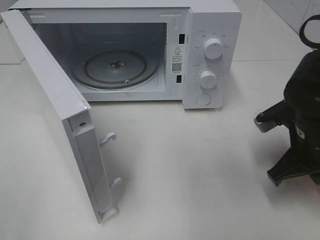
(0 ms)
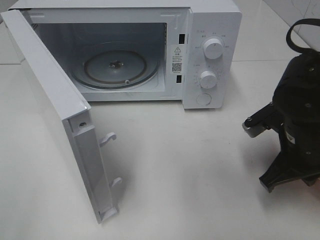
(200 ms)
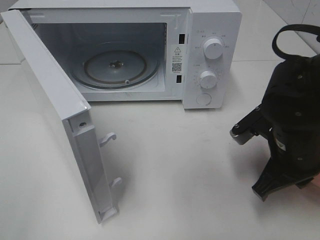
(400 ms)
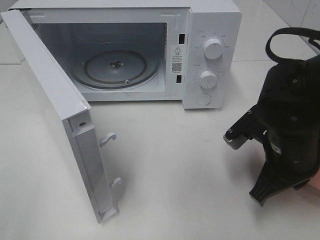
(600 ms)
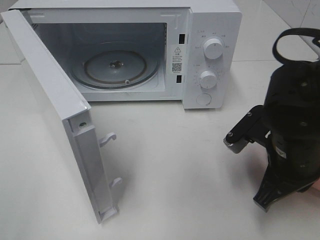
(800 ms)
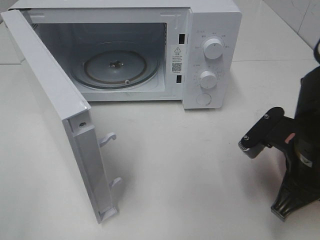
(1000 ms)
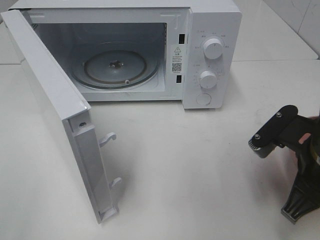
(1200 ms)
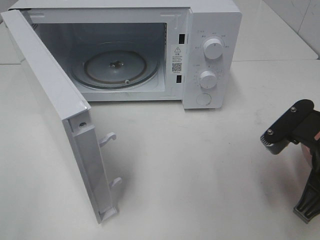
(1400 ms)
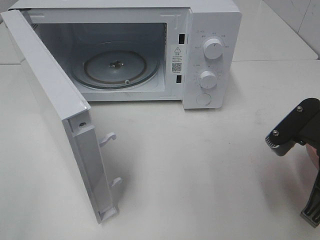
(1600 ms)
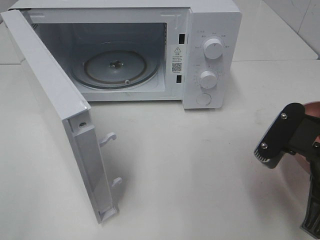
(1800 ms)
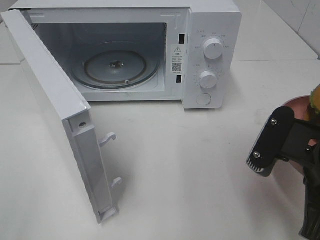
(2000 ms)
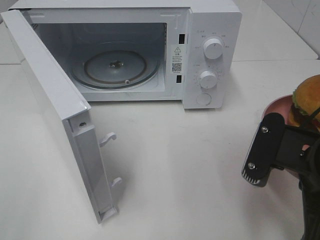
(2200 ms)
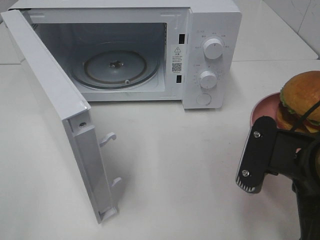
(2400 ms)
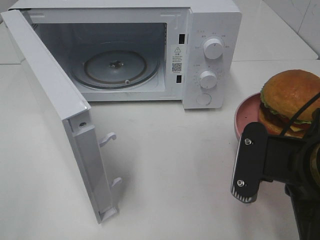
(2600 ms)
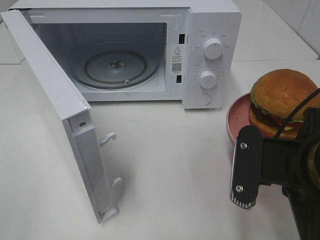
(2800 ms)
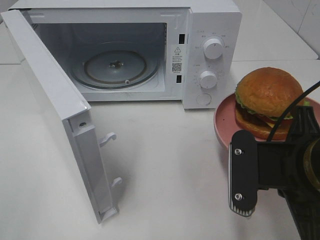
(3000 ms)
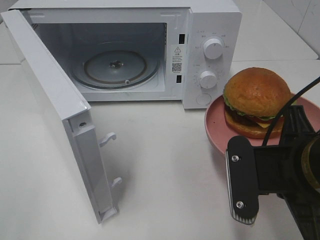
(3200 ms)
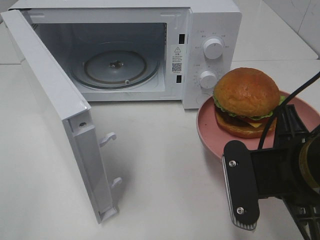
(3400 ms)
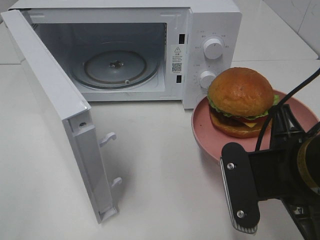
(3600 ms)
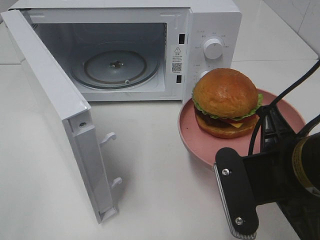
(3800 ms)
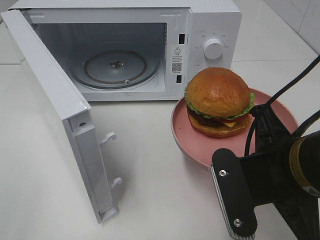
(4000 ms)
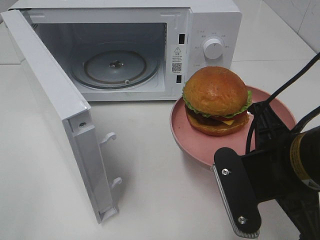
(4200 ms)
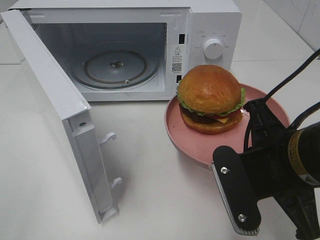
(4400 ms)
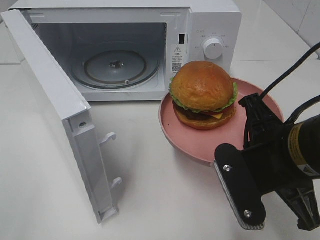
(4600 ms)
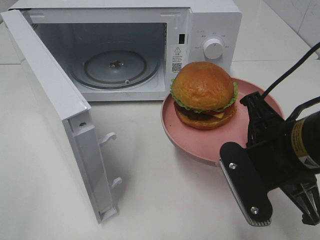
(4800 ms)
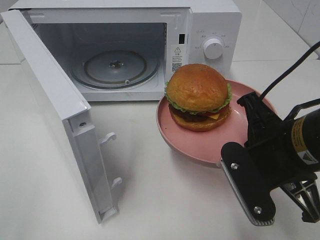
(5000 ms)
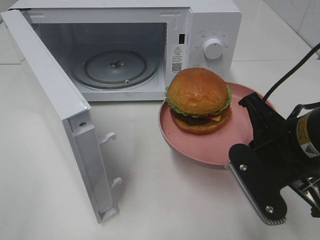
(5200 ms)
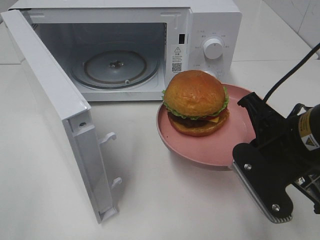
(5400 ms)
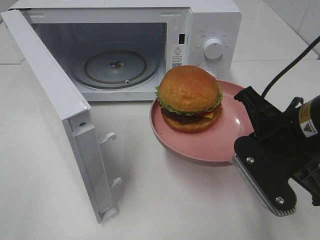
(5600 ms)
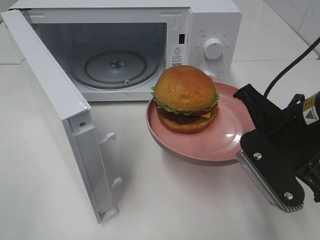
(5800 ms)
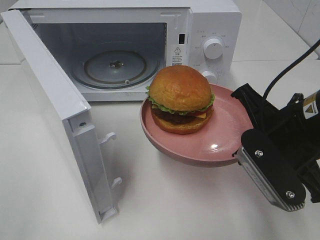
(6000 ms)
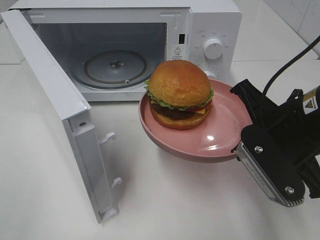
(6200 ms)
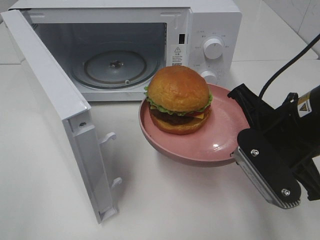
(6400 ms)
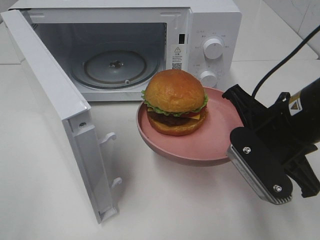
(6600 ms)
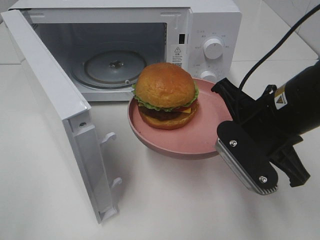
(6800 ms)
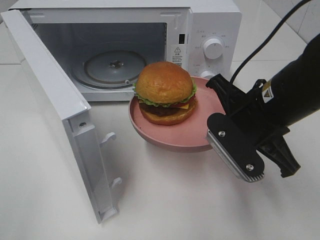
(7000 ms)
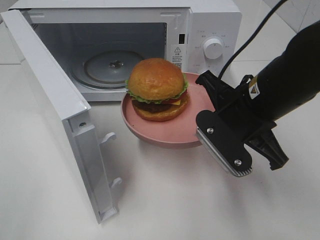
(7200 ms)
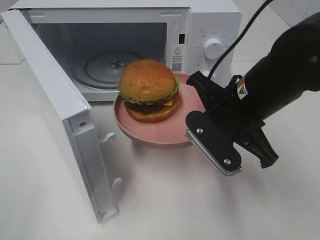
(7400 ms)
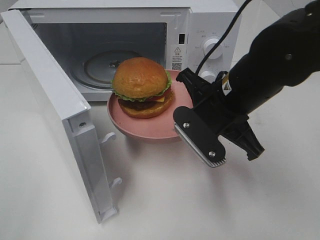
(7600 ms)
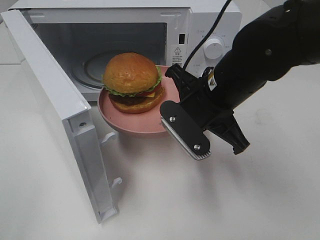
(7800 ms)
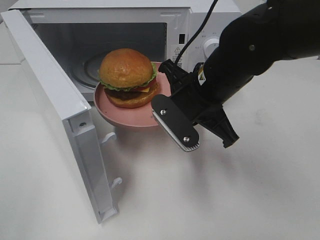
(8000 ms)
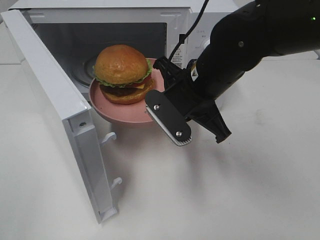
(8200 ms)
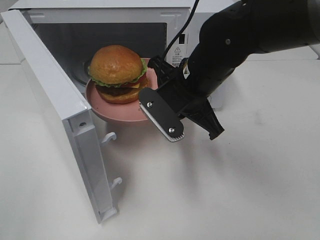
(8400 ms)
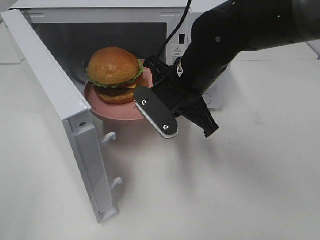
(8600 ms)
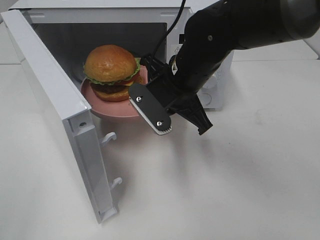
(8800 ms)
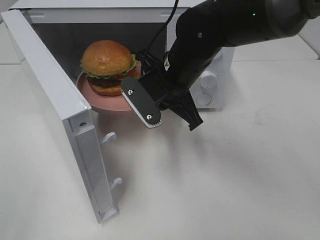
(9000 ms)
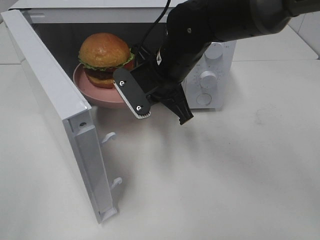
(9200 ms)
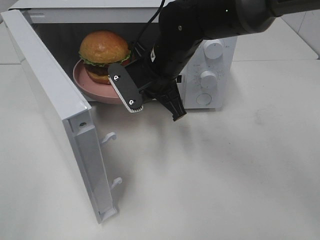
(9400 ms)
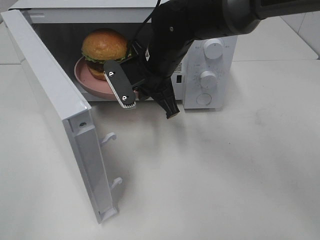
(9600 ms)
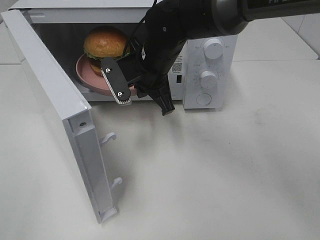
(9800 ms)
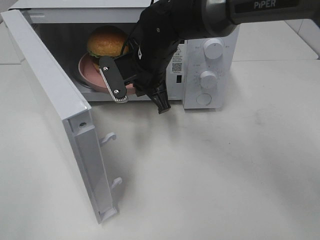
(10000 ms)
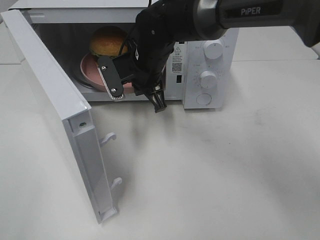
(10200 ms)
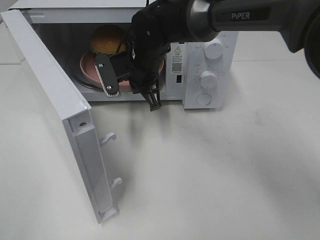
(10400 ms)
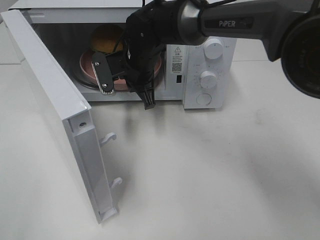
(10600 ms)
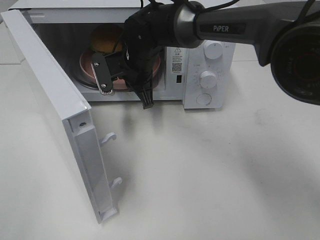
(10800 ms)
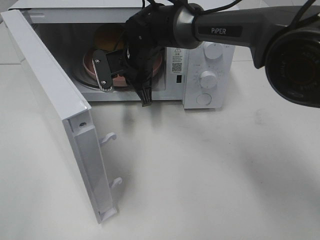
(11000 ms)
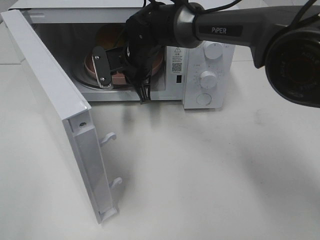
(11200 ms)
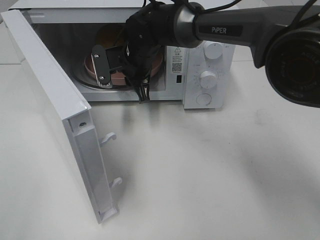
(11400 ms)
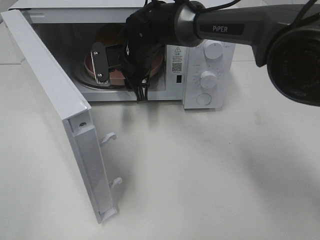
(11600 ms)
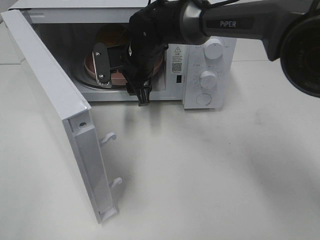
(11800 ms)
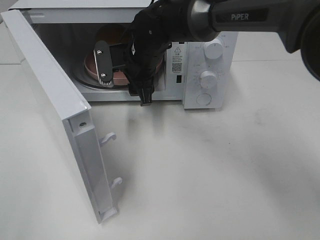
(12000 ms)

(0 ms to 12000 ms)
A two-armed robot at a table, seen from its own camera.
Task of the whole recording: Heat the burger.
Step, 0 ms - 11200 ms: Right hand: place the plate in the microwave.
0 ms - 1600 ms: The right gripper heads backward and upward, covering about 10 cm.
1600 ms - 3000 ms: The right gripper heads to the left, covering some 5 cm.
4400 ms - 6000 ms: The right gripper changes place by roughly 5 cm.
6000 ms - 7600 ms: The right gripper moves to the left and forward, roughly 10 cm.
7600 ms - 9000 ms: The right gripper travels forward and to the left by some 10 cm.
9000 ms - 10400 ms: The right gripper is displaced forward and to the left by roughly 10 cm.
10400 ms - 12000 ms: The right gripper opens.

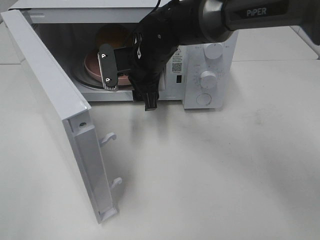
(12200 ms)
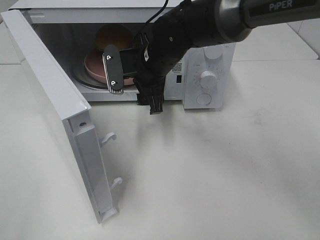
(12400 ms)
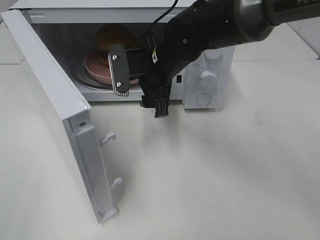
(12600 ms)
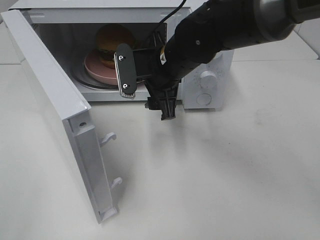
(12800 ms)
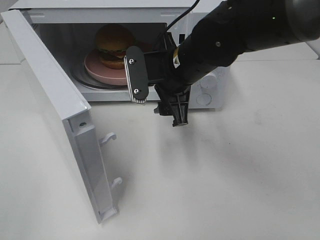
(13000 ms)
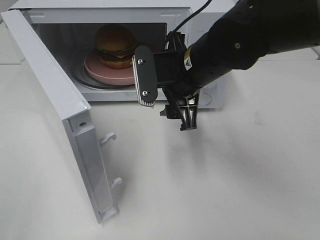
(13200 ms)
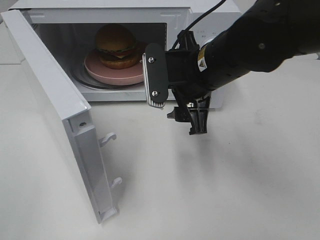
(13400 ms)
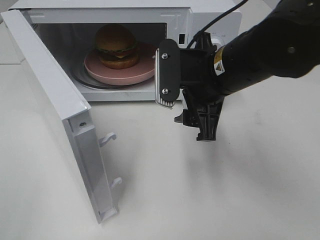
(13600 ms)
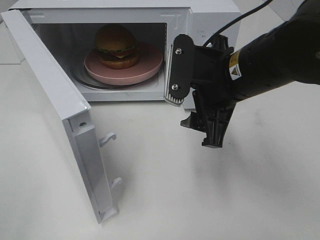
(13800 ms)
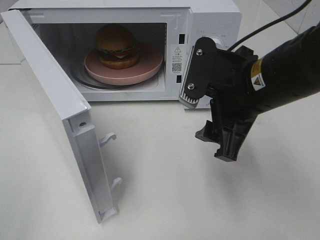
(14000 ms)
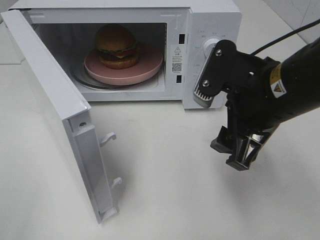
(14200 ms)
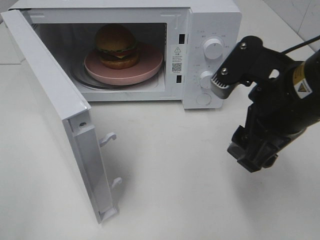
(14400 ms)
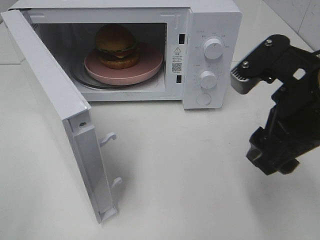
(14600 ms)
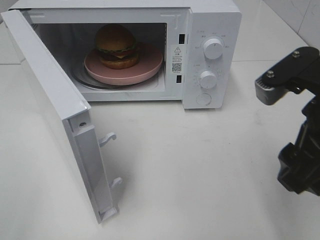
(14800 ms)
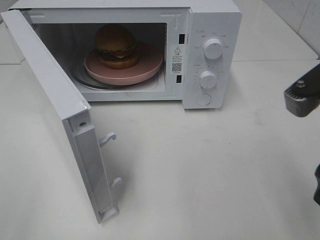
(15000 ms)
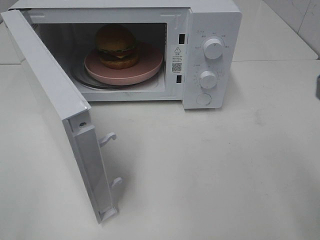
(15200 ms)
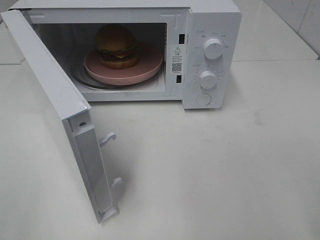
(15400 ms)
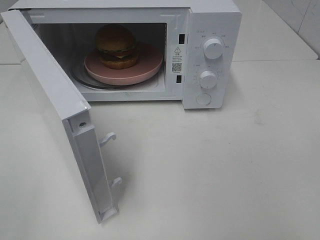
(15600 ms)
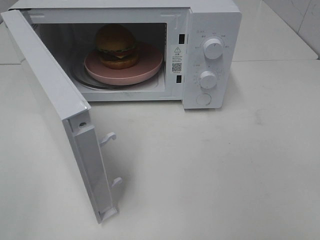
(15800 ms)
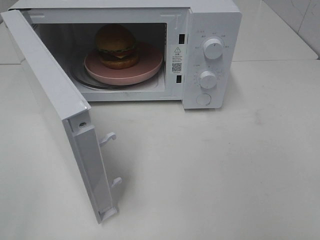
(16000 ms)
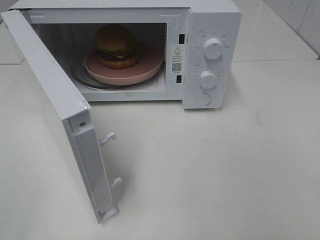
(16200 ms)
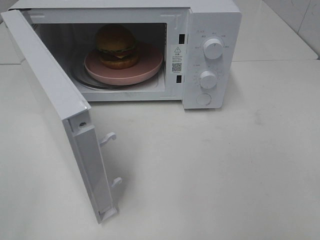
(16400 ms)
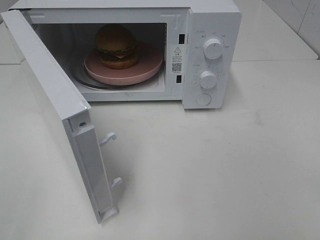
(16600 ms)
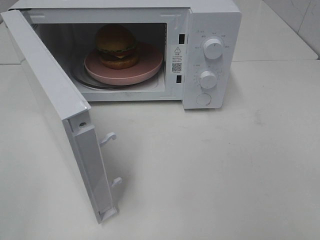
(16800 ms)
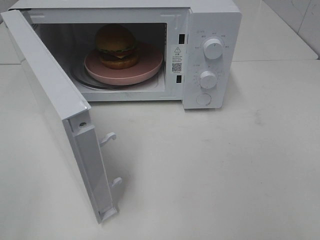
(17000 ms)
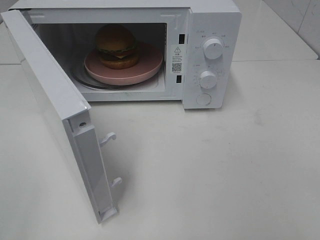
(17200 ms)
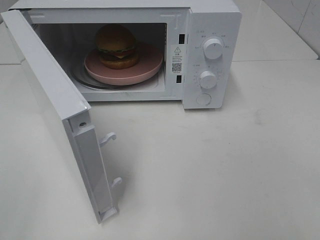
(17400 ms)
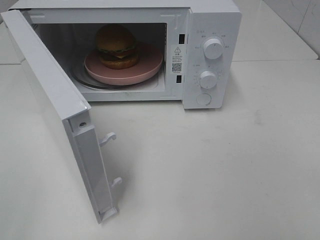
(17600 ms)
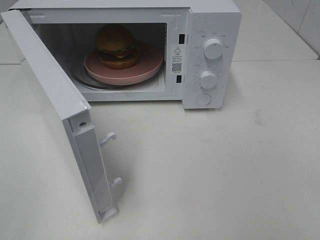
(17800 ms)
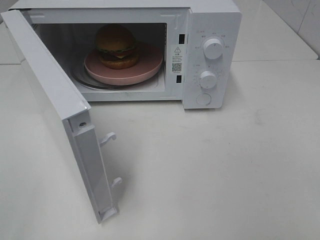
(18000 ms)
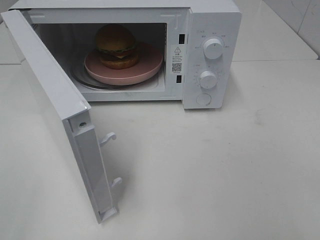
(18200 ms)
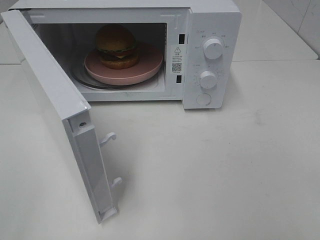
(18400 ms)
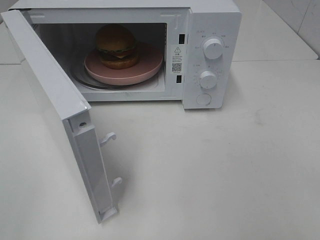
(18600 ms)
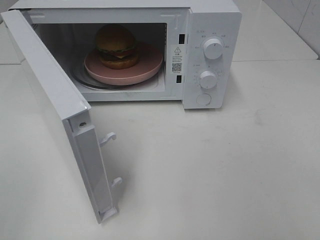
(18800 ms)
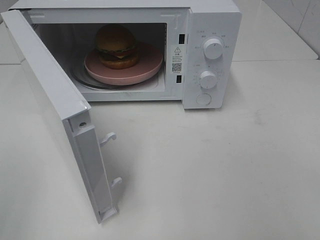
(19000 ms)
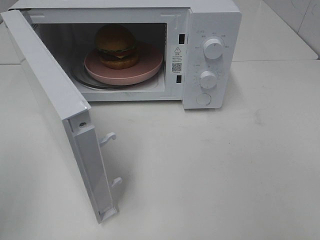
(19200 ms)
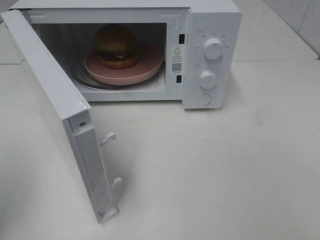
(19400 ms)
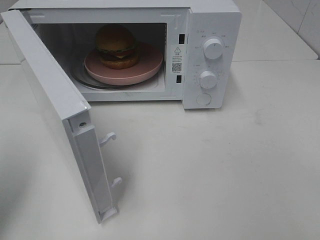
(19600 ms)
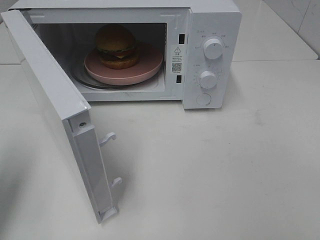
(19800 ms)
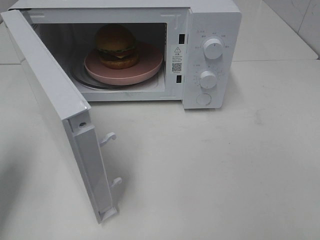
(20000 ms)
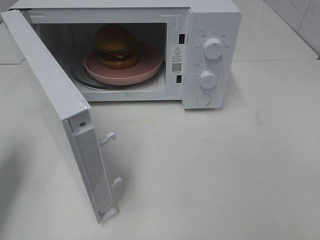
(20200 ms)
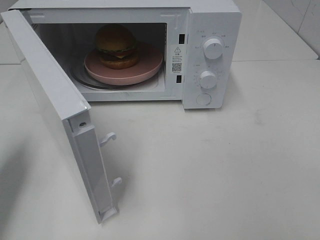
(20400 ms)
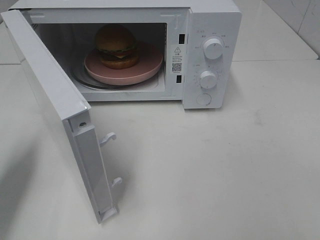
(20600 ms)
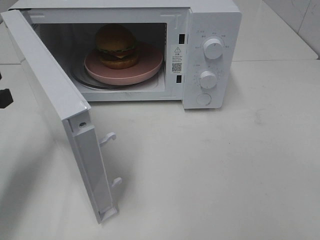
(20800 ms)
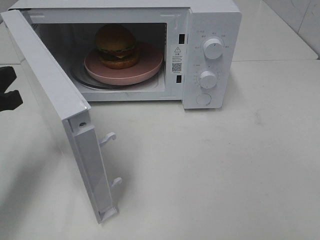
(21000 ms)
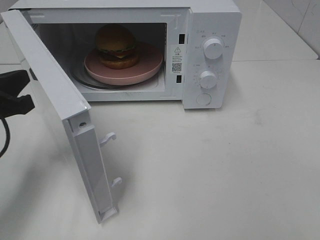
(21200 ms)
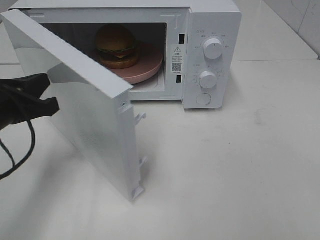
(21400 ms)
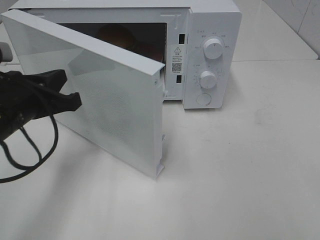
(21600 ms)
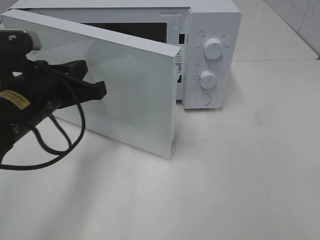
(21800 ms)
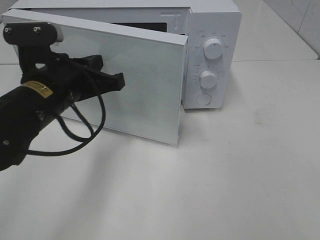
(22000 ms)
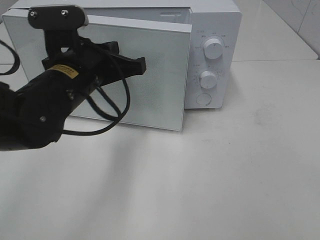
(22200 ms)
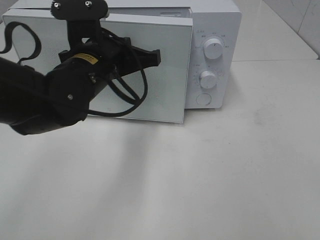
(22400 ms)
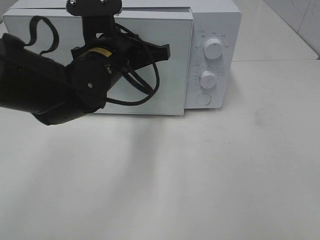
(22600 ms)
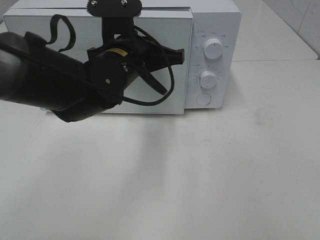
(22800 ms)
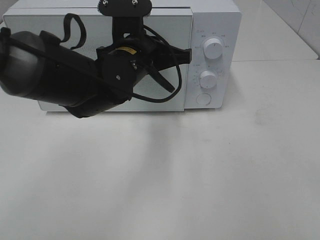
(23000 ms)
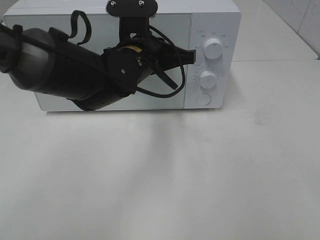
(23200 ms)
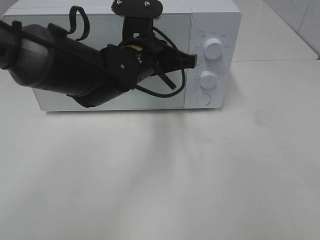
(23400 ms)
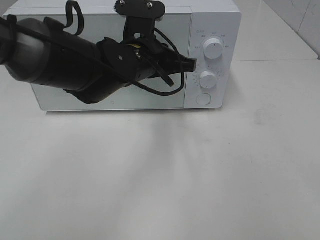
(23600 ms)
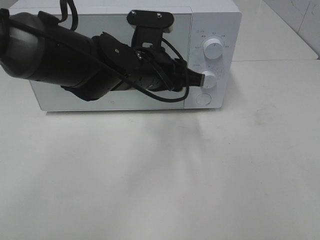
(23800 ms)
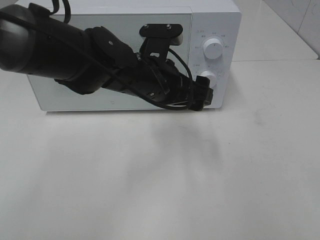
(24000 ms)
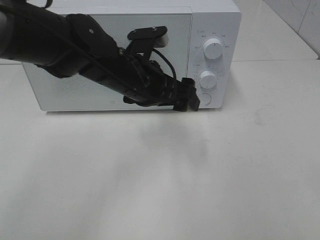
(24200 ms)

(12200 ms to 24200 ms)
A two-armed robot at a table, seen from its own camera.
Task of the whole recording: Heat the burger.
Step, 12200 ms - 23600 ms: Left hand: close the microwave door.
12200 ms - 13800 ms: The right gripper moves backward and to the right, roughly 20 cm.
13800 ms - 15200 ms: The right gripper moves backward, to the right and upward, some 20 cm.
15200 ms - 16600 ms: The right gripper is displaced backward and to the right by approximately 15 cm.
16600 ms - 18200 ms: Both grippers stay about where they are.
18200 ms - 19800 ms: The left gripper shifts roughly 15 cm forward, and closes up.
19800 ms - 21200 ms: The left gripper moves downward, to the right and forward, approximately 10 cm.
21200 ms - 22600 ms: The left gripper heads to the right and forward, covering approximately 20 cm.
22600 ms - 24200 ms: The left gripper opens.
